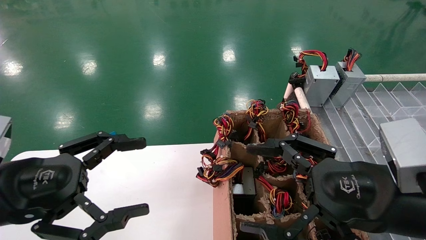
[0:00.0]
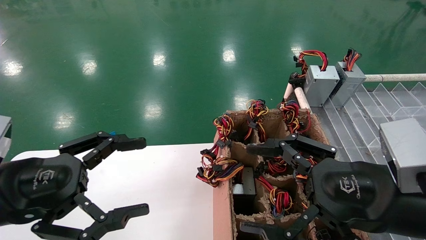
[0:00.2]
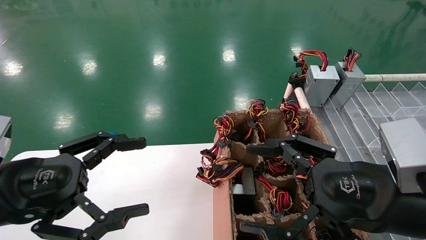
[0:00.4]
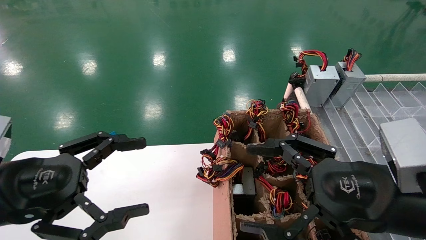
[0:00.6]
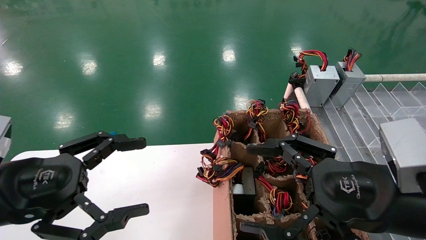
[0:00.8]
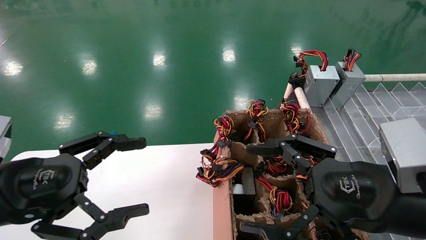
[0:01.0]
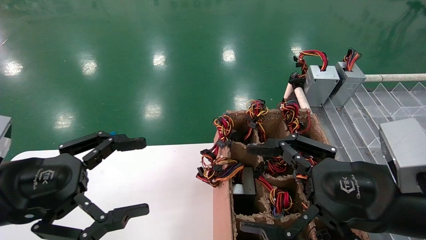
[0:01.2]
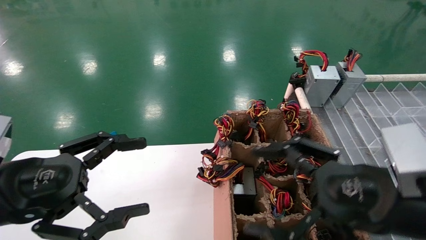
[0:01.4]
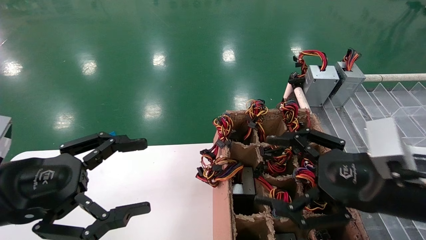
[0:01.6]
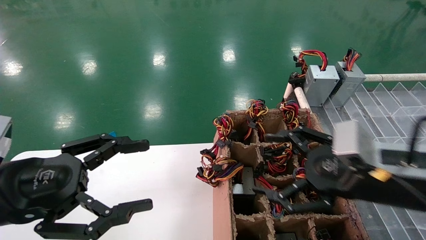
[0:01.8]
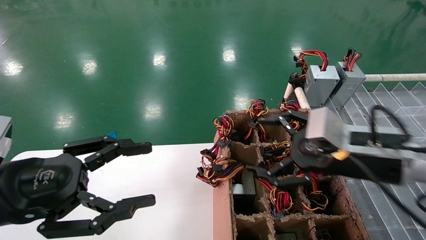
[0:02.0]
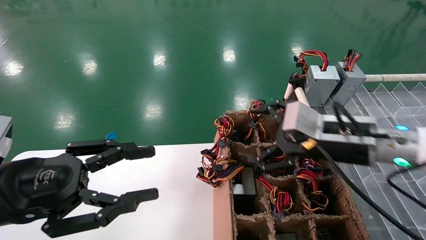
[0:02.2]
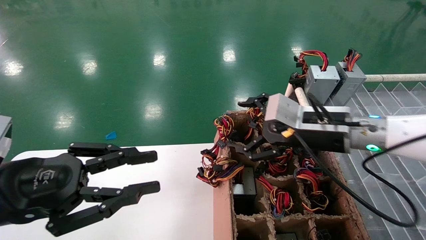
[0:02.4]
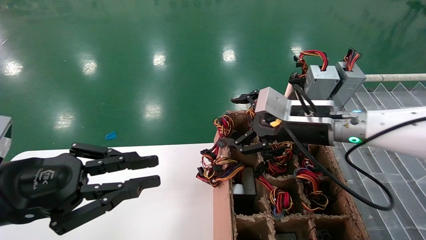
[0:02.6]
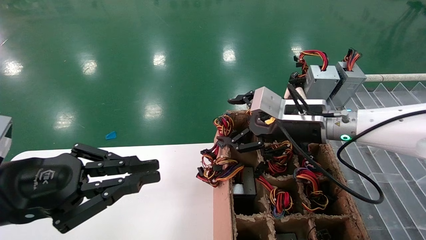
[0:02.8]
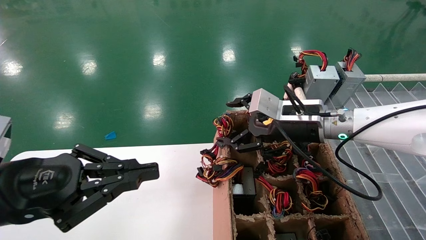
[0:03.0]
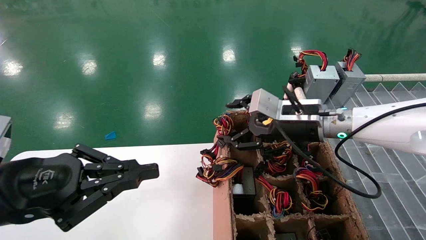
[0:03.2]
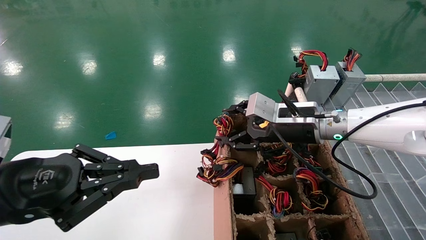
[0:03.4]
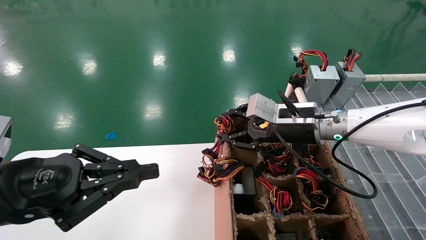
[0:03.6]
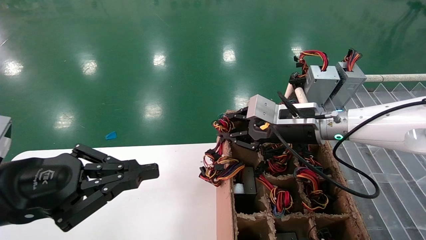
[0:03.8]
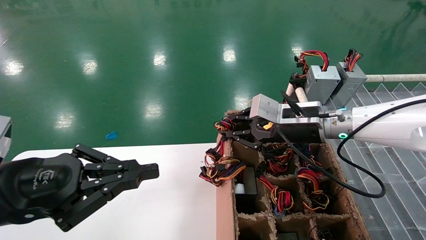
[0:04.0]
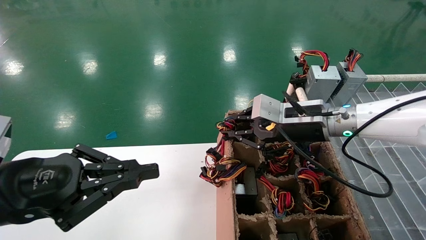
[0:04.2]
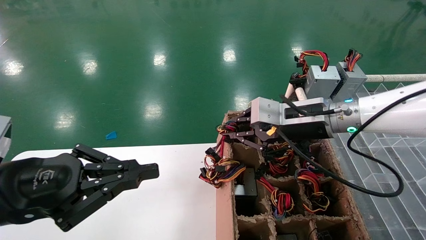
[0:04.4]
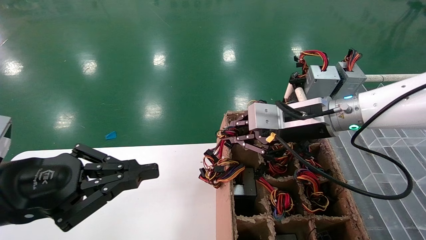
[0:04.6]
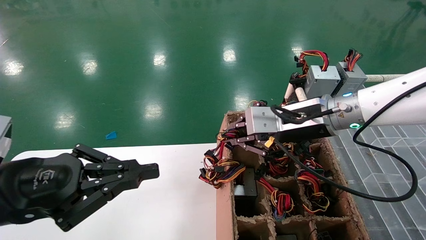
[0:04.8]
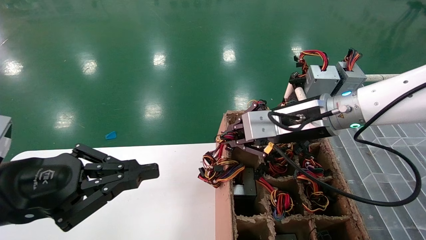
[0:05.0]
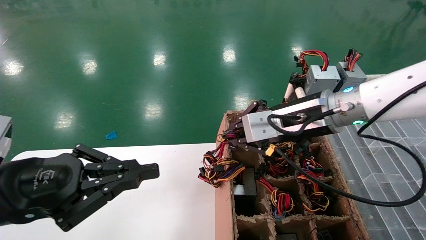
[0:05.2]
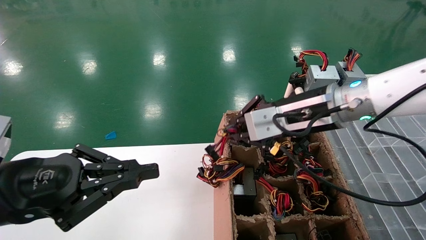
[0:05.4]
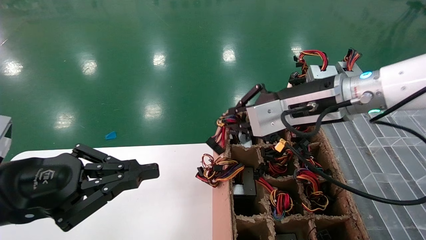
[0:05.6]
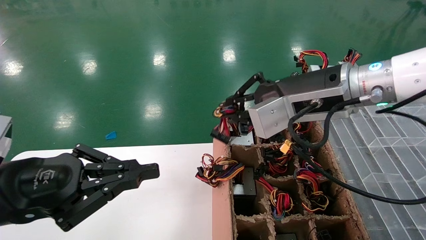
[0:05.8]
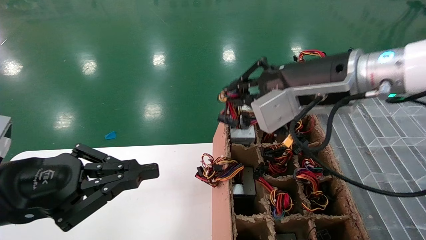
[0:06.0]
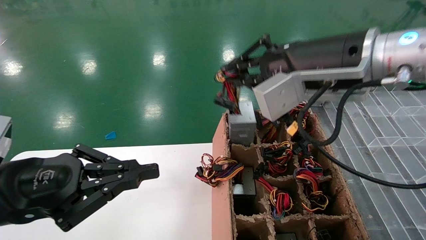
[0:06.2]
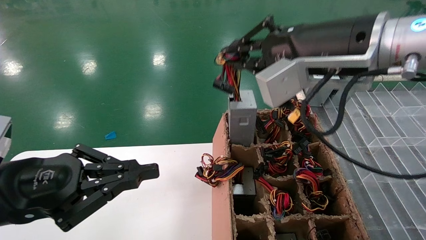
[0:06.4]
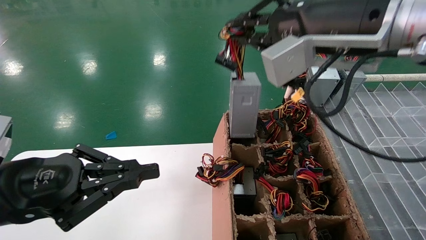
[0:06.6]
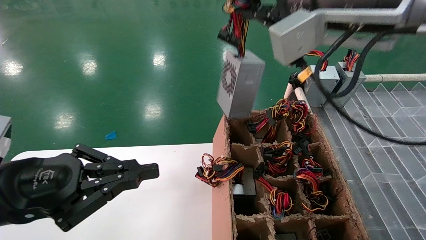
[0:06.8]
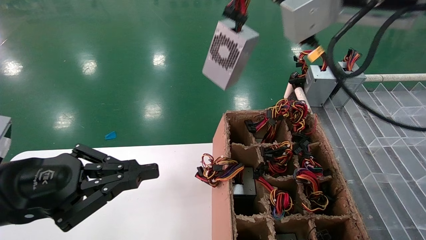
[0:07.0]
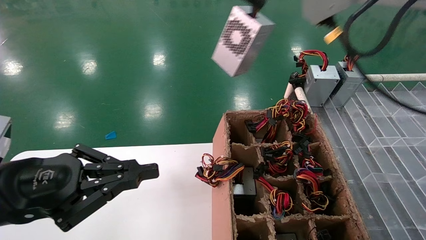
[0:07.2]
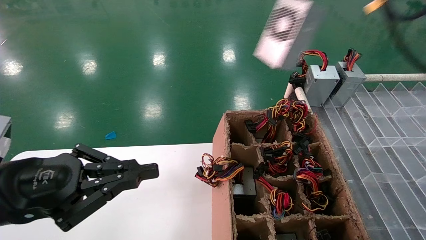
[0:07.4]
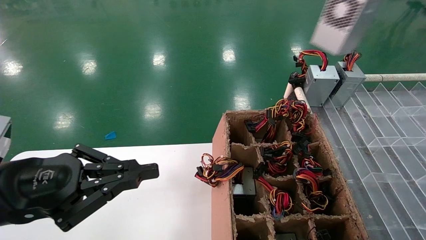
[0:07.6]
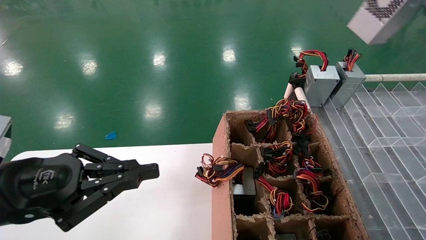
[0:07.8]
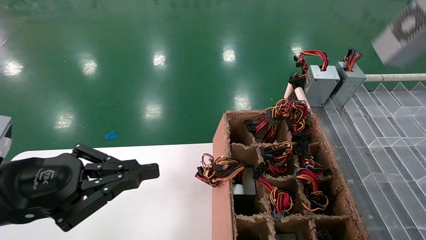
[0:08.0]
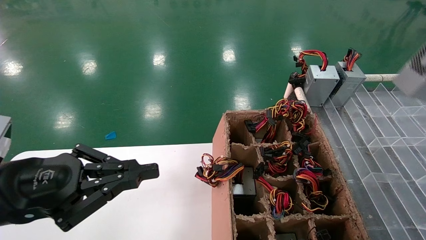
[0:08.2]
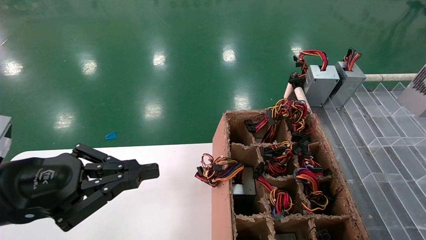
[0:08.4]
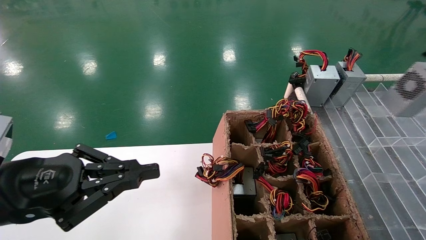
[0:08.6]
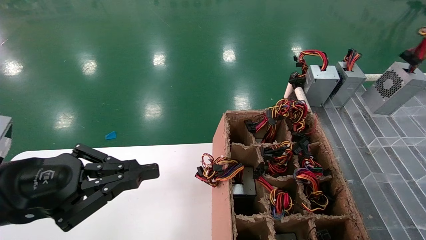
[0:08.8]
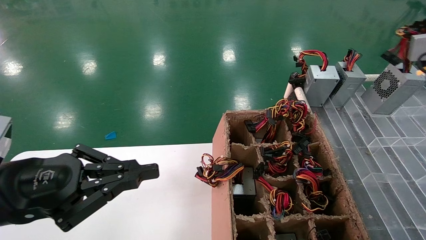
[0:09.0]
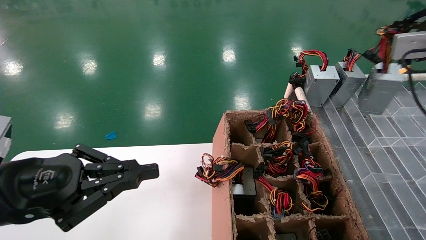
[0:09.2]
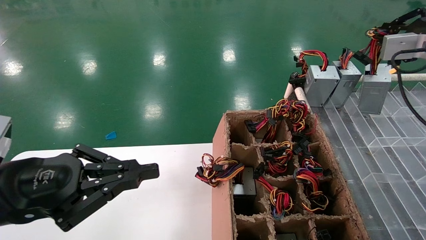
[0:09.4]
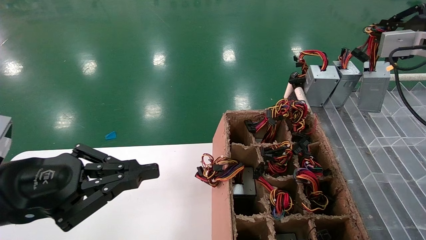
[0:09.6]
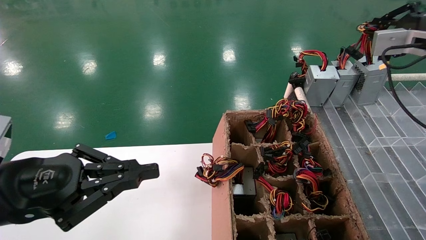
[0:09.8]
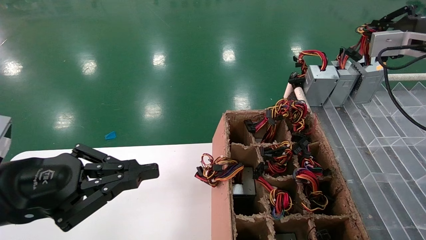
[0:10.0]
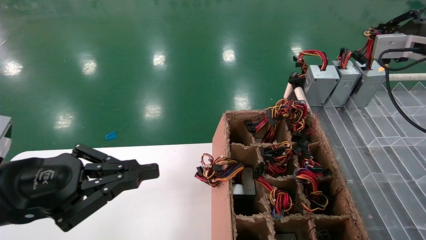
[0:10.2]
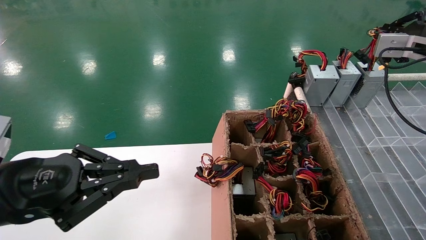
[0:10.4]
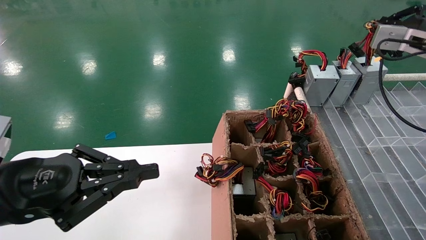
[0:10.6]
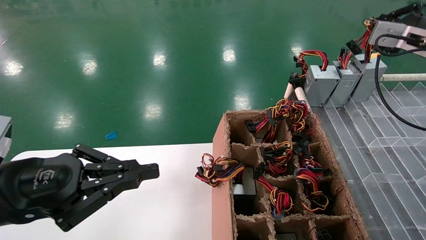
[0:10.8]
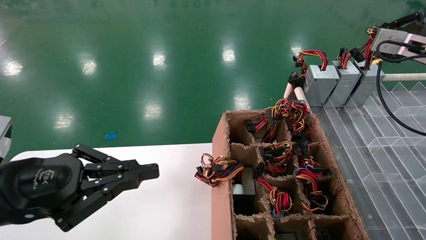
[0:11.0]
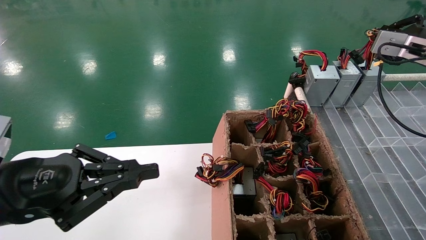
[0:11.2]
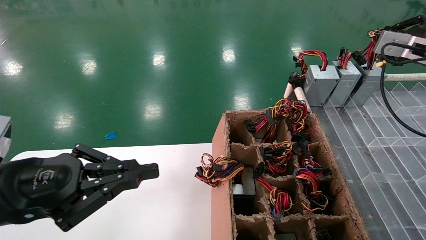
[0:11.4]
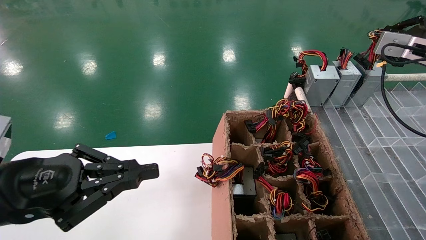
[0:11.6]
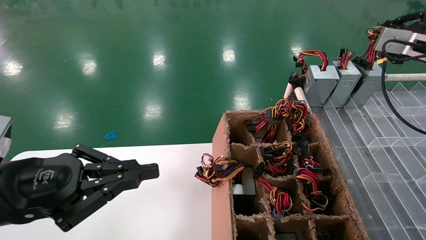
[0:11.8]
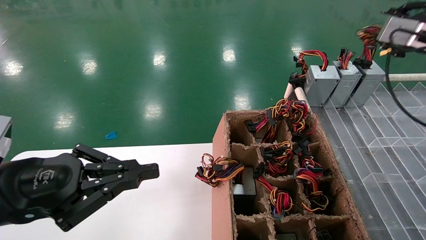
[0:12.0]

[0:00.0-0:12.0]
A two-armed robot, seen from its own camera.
Step, 0:01.8 to 0:04.0: Grab the main unit power supply from the containment box.
0:00.0 to 0:01.6: The grippers move only a little.
0:01.6 to 0:03.0: The left gripper closes. The right gripper is displaced forward by approximately 15 cm.
0:03.0 to 0:04.4: The right gripper closes its fingers.
0:04.4 to 0:06.0: The right gripper shifts about 15 cm upward and backward.
0:06.0 to 0:07.6: The right gripper shifts about 25 cm to the right, upward and backward.
0:07.6 to 0:09.0: The right gripper heads to the right, downward and forward, covering roughly 20 cm.
0:09.0 to 0:10.4: The right gripper travels forward by approximately 5 cm.
0:10.4 to 0:12.0: The grippers make only small movements.

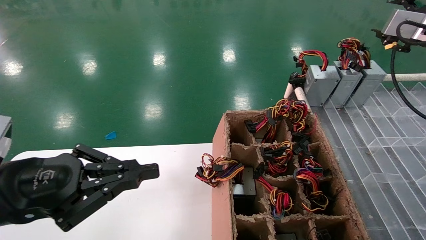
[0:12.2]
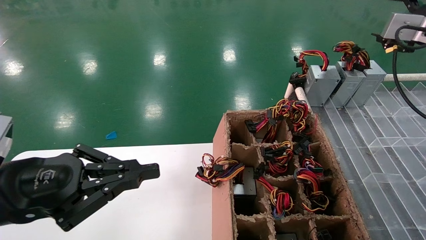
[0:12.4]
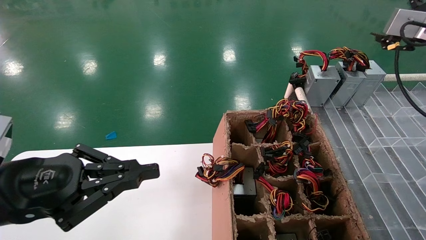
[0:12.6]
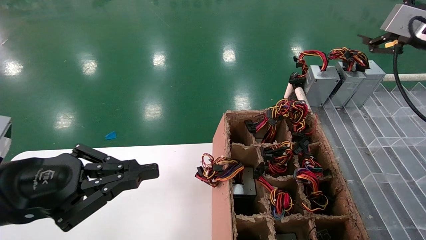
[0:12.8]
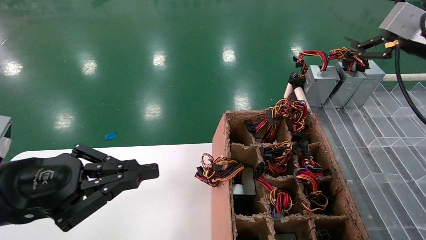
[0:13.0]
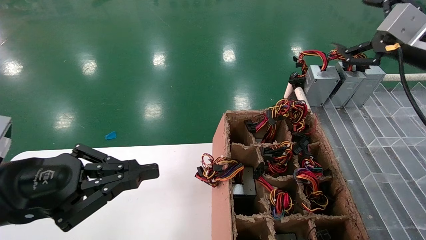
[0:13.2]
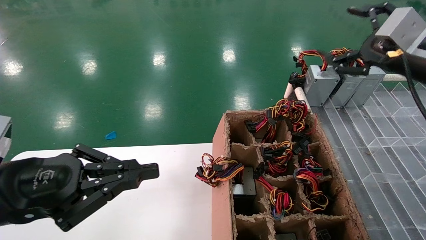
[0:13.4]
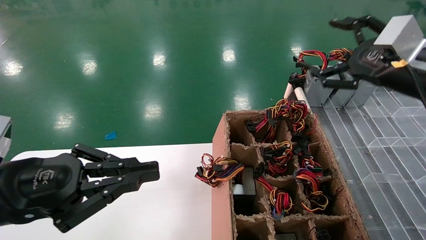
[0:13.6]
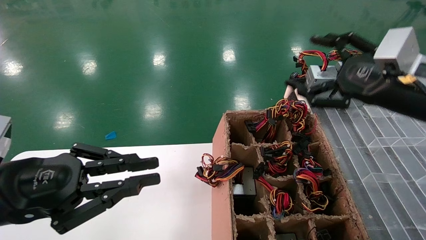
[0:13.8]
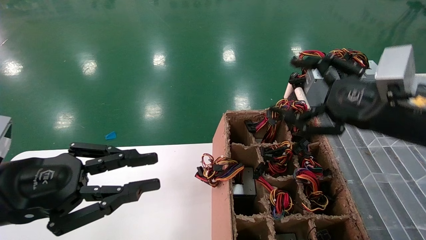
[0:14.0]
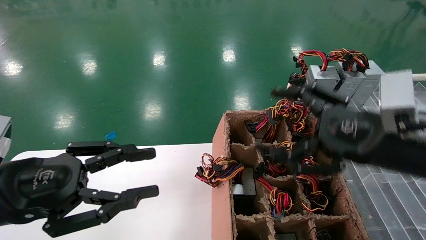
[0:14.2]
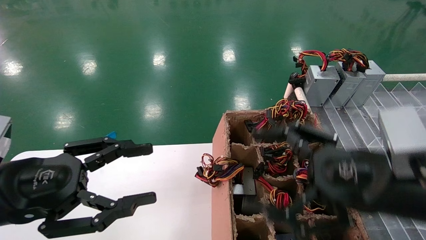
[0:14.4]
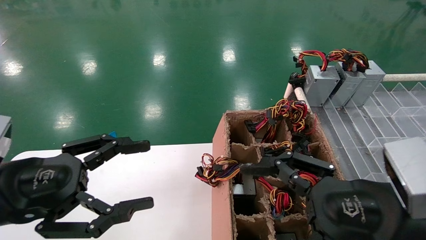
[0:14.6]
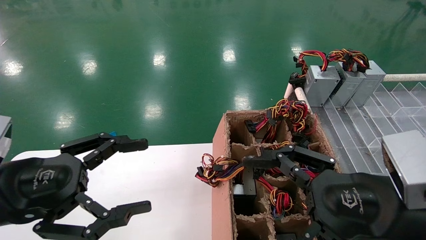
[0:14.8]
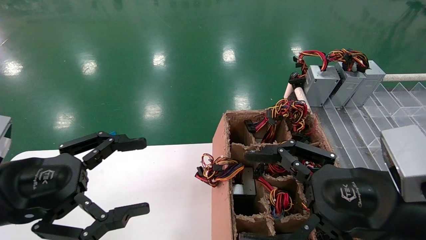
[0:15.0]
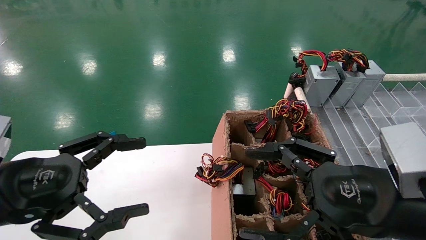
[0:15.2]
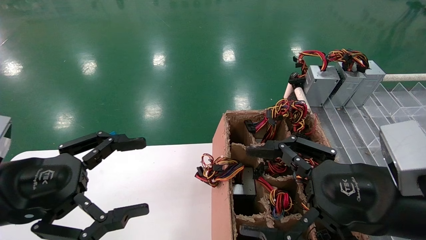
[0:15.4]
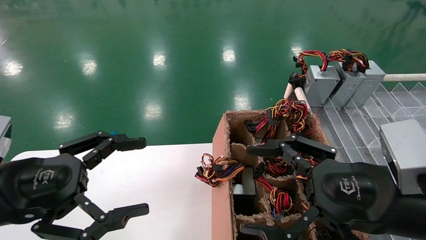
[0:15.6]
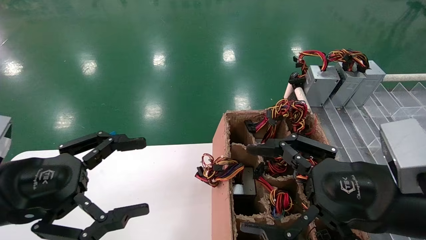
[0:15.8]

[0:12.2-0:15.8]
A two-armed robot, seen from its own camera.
0:12.2 to 0:14.0: The right gripper goes approximately 20 cm to the left, backward and downward, and opens.
0:14.0 to 0:15.8: The right gripper goes some 10 cm backward, downward and to the left. The left gripper opens.

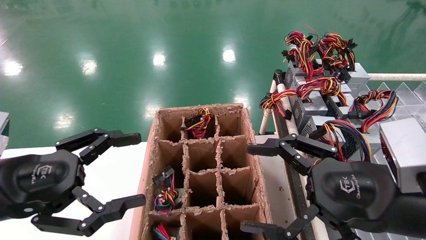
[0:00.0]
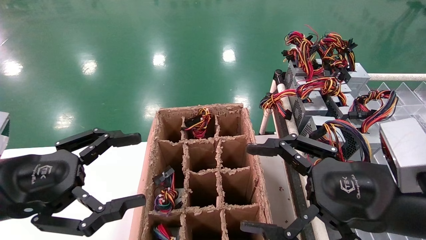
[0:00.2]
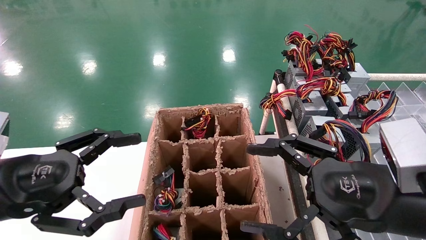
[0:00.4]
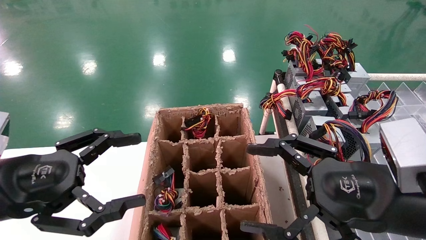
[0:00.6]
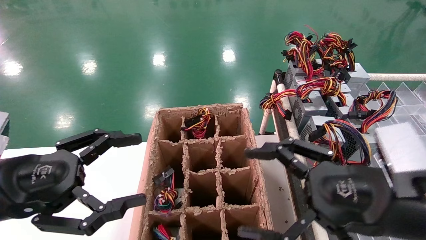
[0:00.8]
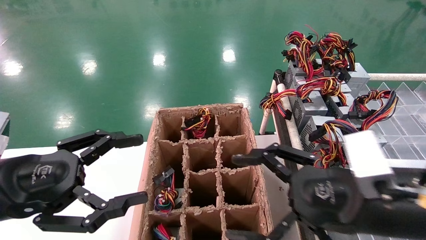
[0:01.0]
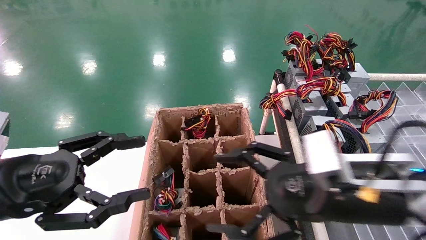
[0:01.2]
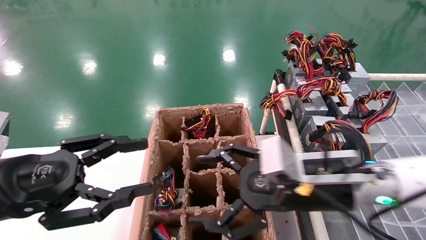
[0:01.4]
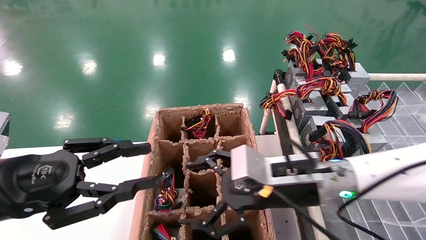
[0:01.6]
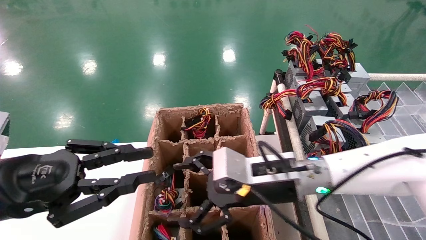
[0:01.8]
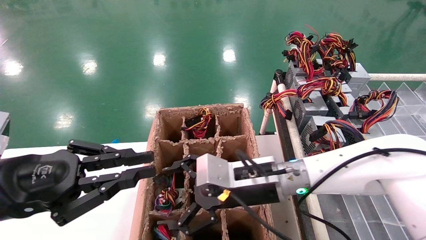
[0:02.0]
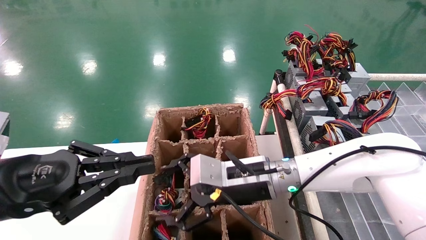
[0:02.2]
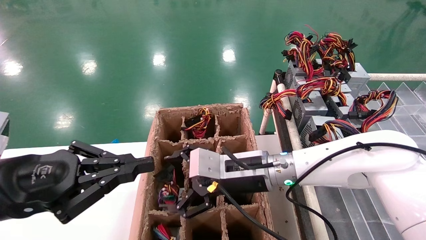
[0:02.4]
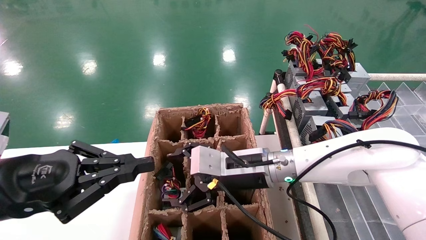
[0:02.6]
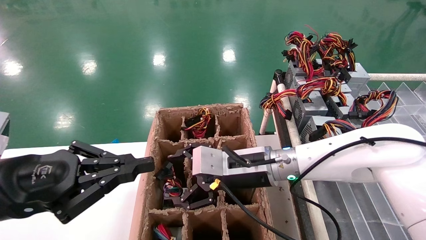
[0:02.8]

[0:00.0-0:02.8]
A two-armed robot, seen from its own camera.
0:00.0 to 0:01.4: The right gripper travels forward and to the left by approximately 10 cm.
0:01.4 to 0:02.8: The left gripper closes, while the right gripper heads forward and to the left, covering roughly 10 cm.
